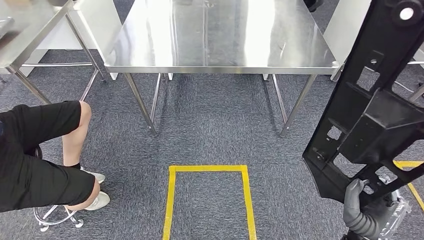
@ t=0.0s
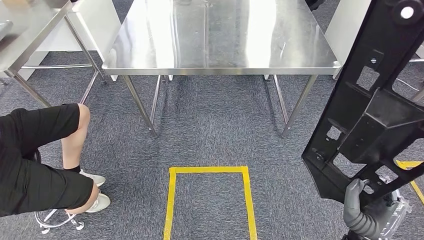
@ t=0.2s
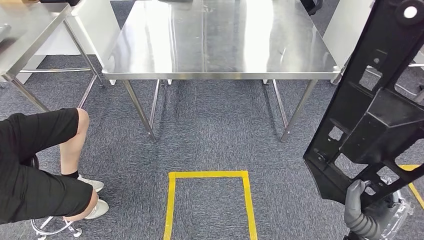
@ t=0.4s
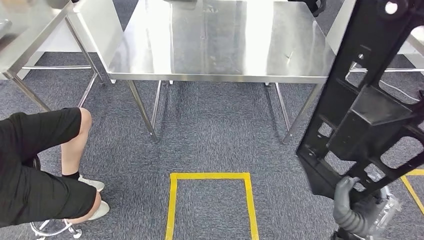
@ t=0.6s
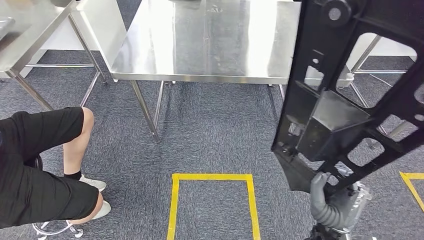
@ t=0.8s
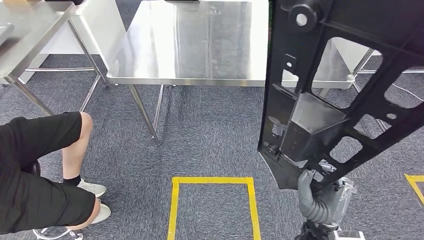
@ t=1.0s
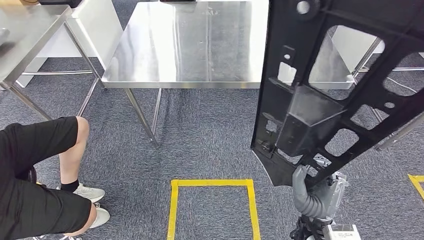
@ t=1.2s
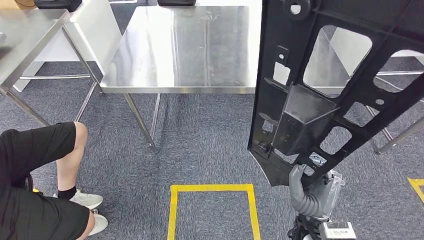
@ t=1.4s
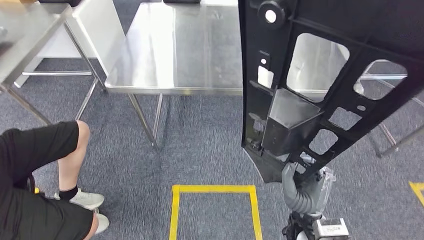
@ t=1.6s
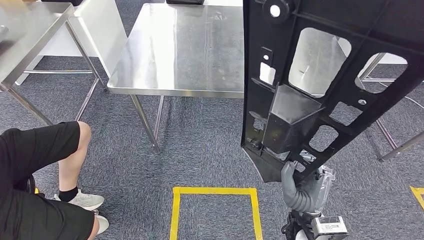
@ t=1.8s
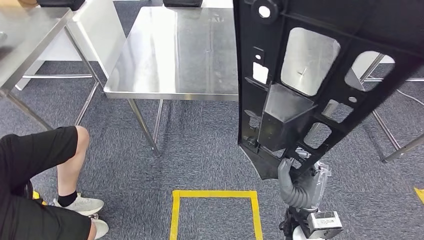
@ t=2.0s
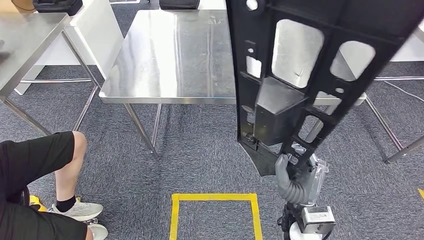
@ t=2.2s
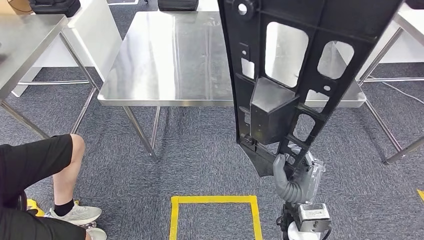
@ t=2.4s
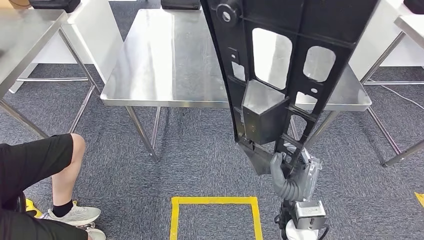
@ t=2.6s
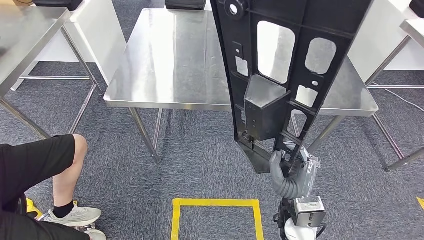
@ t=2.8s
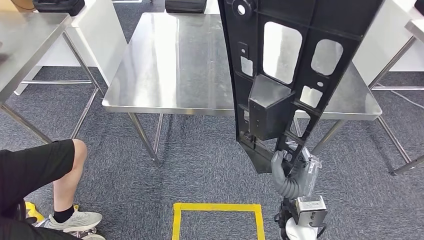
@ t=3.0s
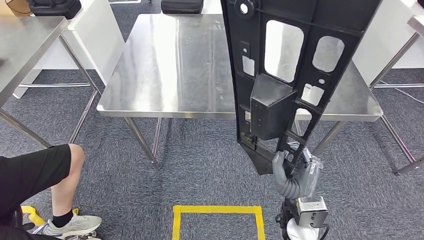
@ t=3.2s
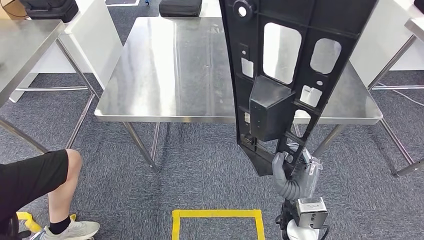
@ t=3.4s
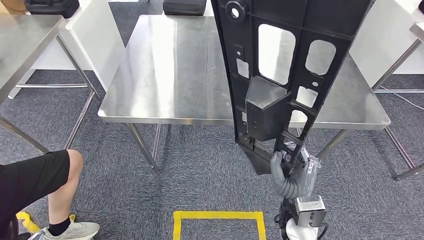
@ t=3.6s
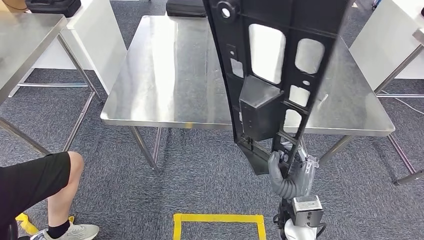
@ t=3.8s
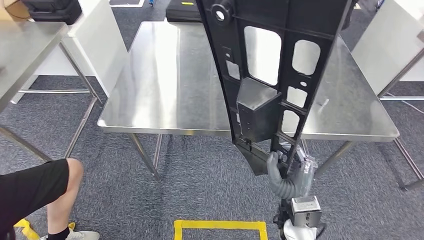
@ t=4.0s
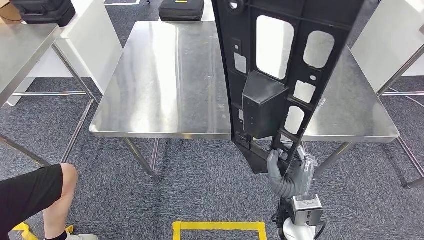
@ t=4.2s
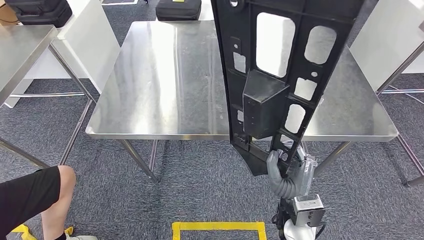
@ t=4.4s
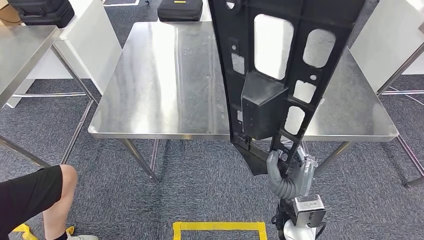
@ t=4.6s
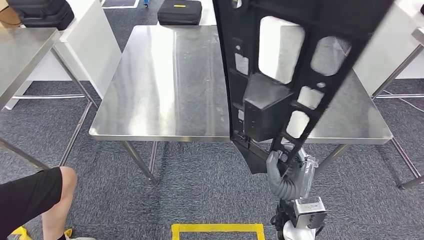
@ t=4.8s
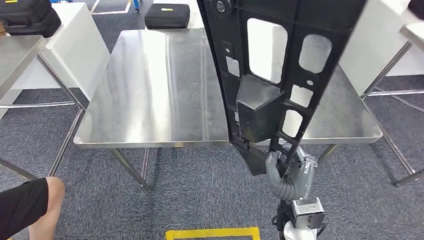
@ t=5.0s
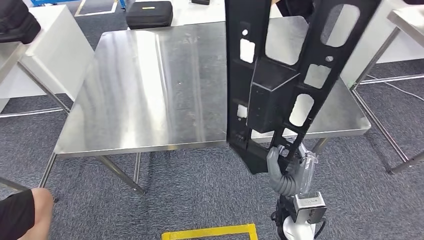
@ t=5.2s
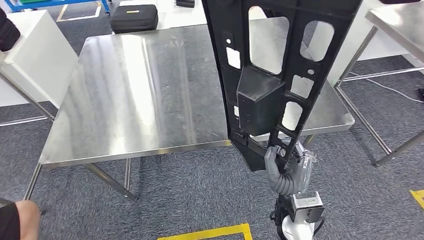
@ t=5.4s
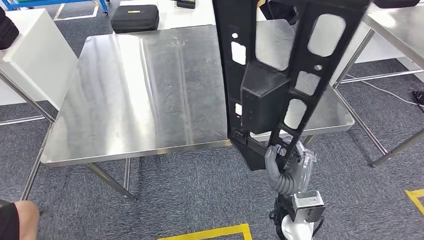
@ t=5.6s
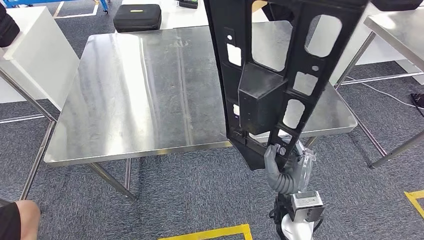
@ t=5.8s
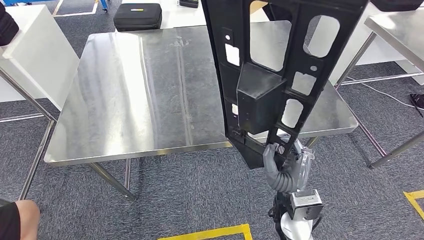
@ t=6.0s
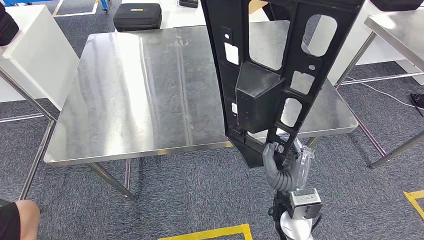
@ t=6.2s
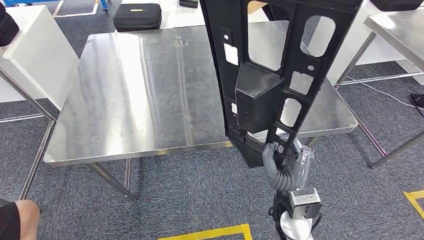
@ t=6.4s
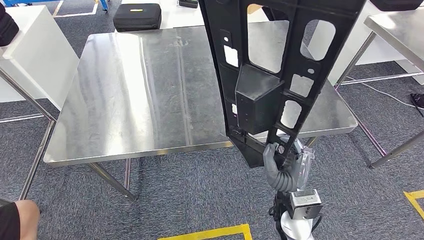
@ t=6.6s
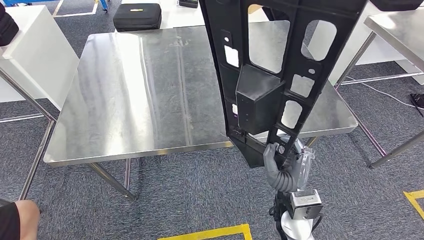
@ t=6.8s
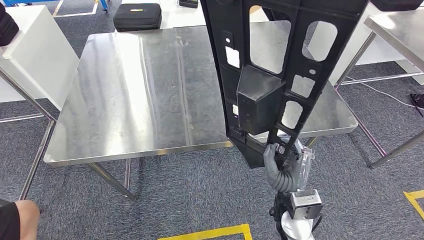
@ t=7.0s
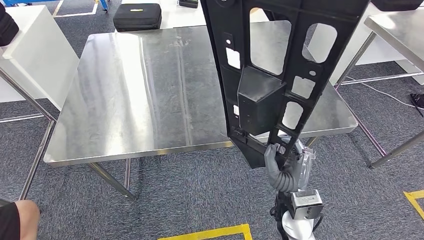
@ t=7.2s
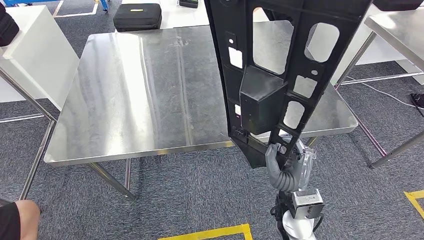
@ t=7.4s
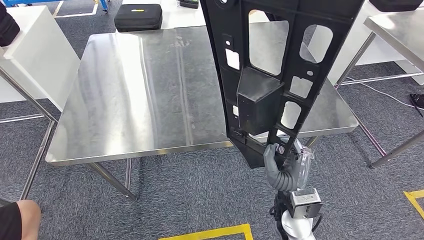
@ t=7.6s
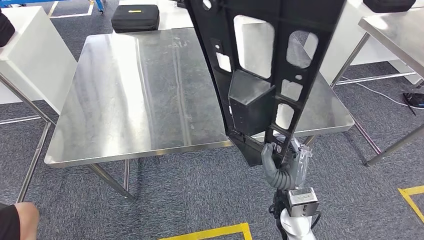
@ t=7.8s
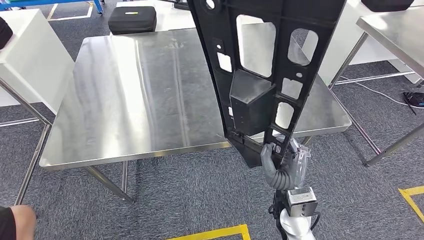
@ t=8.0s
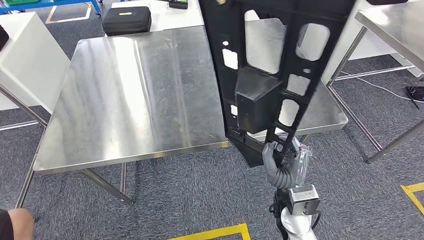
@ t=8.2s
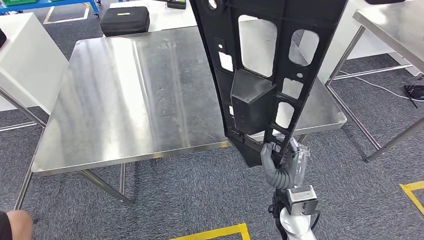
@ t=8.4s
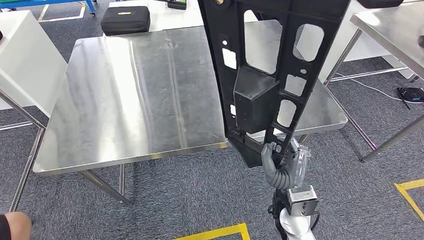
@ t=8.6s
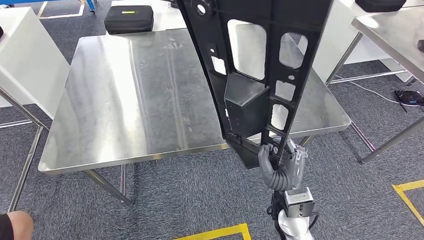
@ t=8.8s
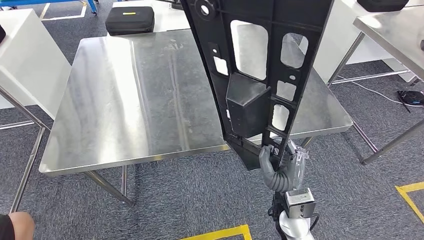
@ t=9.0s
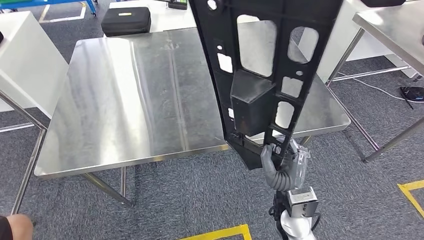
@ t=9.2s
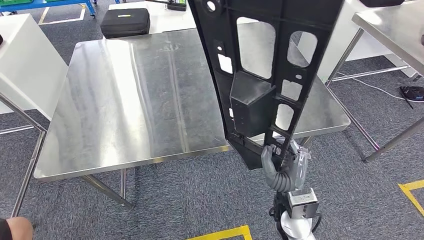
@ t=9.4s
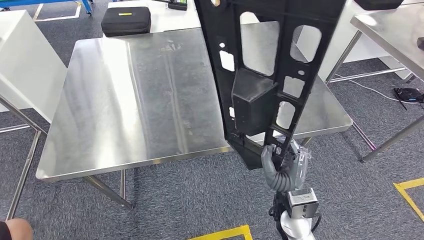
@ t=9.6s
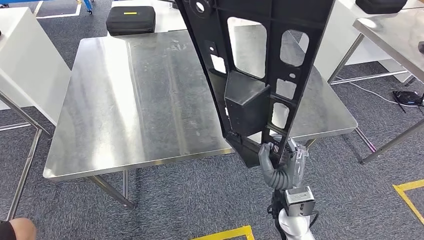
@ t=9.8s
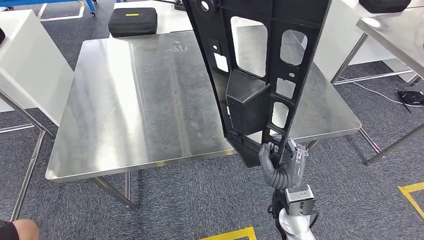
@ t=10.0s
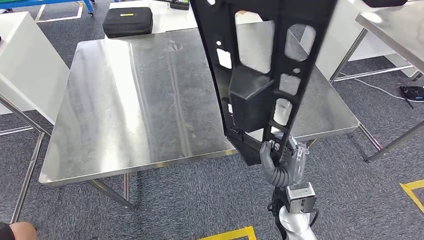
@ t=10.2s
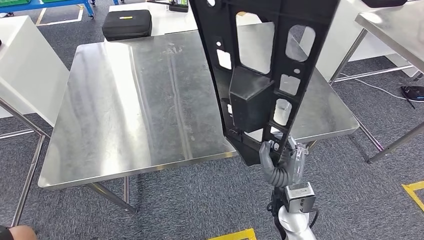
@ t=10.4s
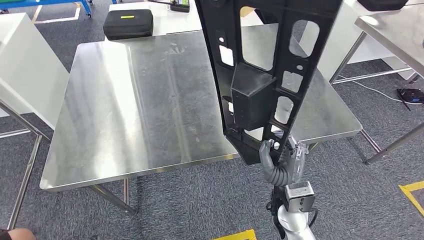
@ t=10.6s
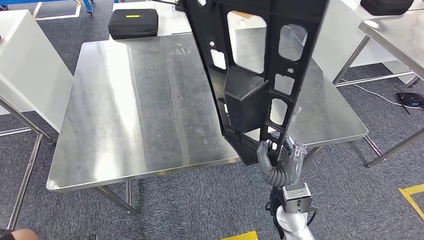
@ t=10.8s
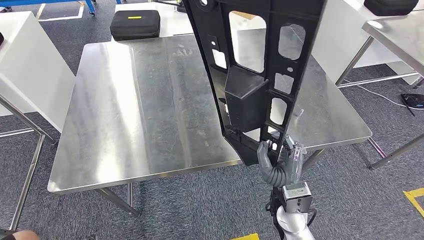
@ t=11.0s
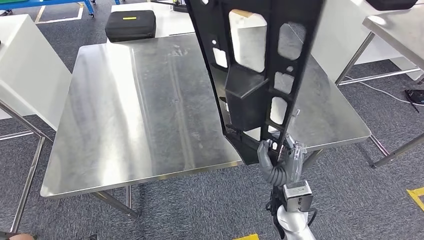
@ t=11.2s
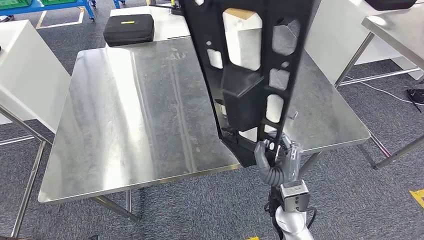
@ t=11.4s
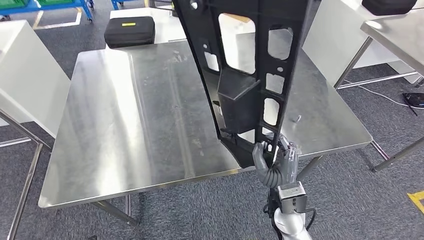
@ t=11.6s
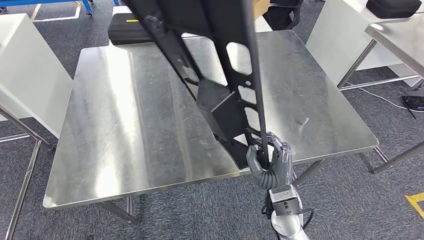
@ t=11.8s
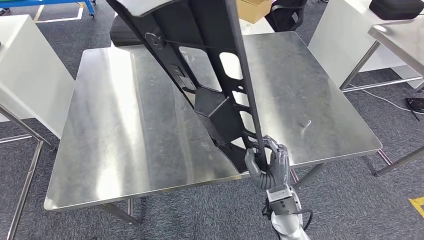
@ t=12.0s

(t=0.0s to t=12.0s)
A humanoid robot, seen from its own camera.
t=6.0s - t=7.6s: Both hands stay about where they are.

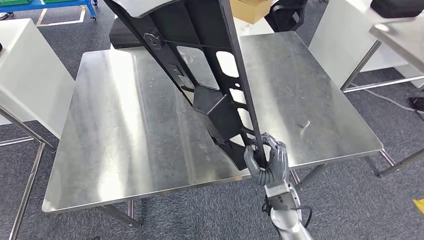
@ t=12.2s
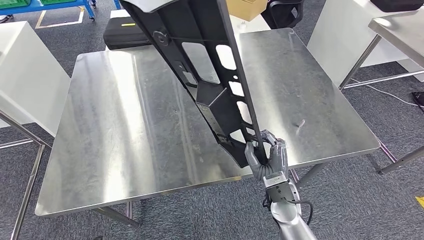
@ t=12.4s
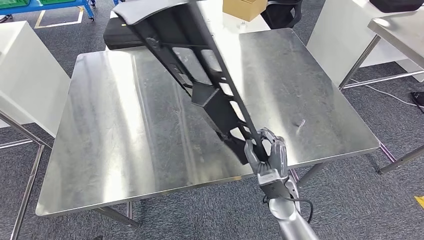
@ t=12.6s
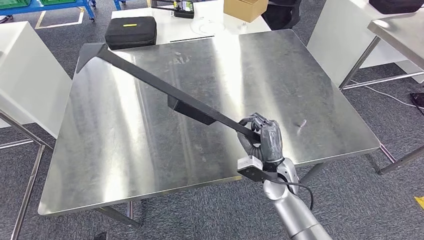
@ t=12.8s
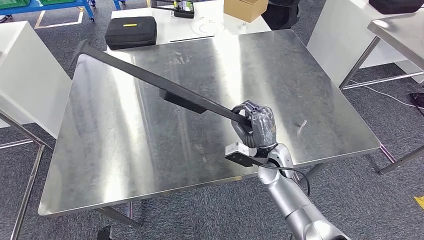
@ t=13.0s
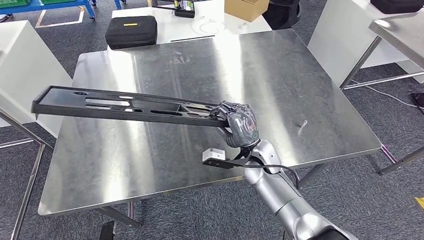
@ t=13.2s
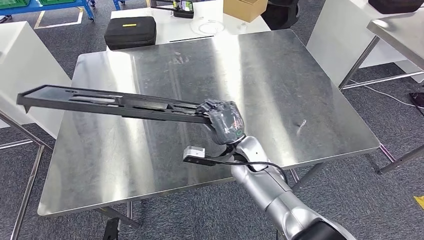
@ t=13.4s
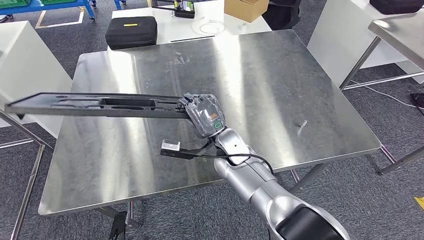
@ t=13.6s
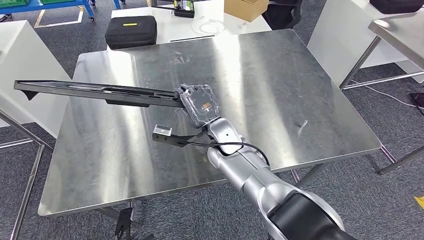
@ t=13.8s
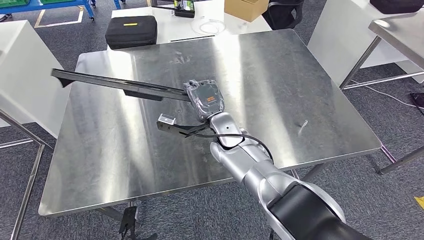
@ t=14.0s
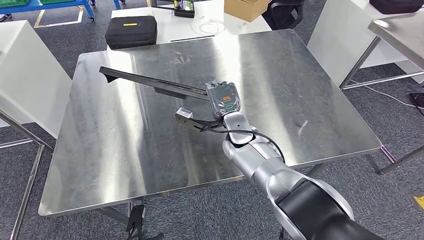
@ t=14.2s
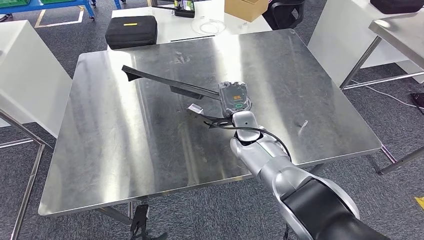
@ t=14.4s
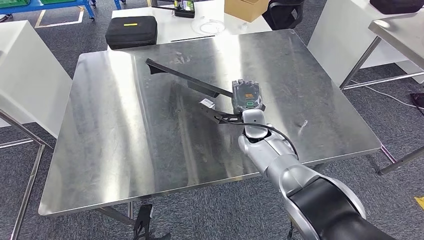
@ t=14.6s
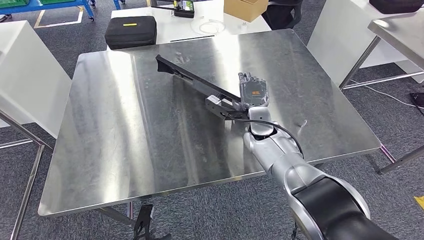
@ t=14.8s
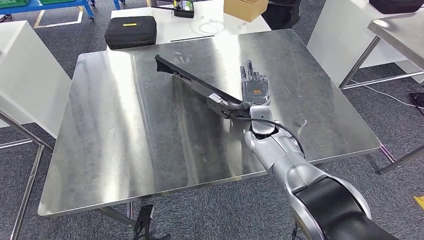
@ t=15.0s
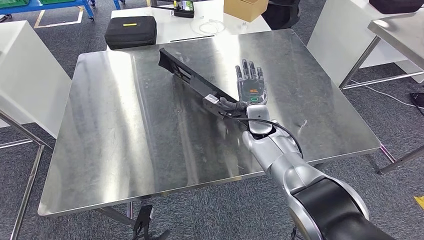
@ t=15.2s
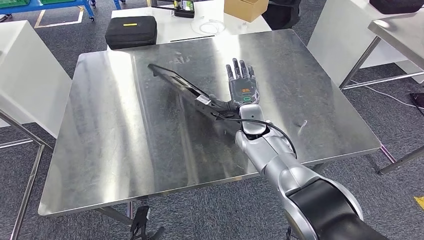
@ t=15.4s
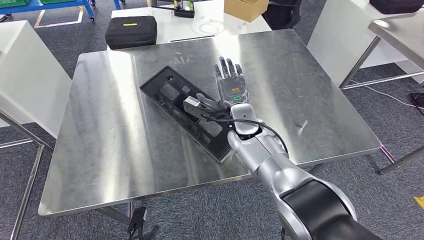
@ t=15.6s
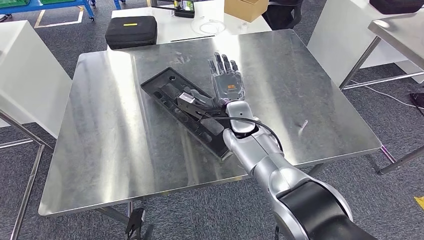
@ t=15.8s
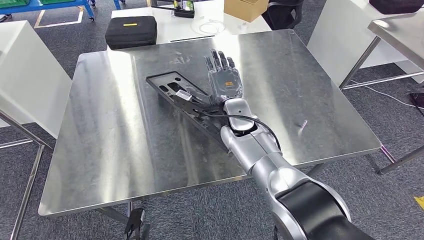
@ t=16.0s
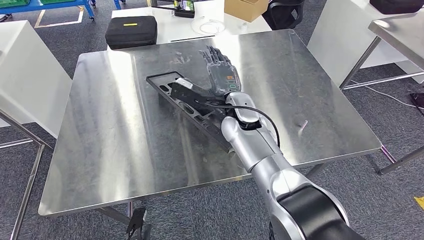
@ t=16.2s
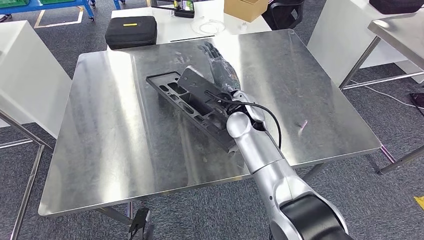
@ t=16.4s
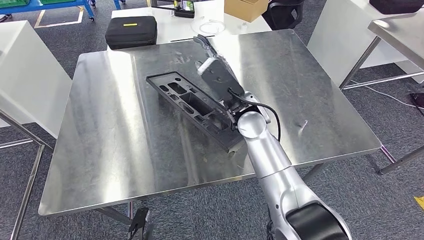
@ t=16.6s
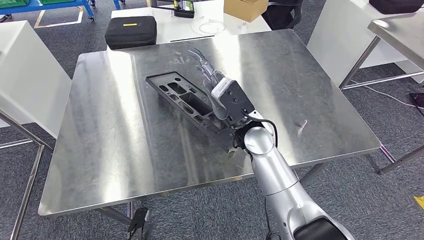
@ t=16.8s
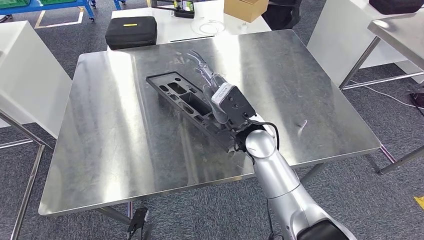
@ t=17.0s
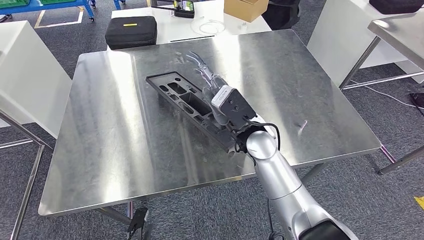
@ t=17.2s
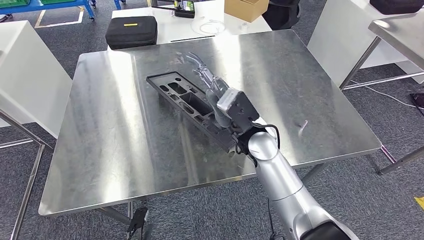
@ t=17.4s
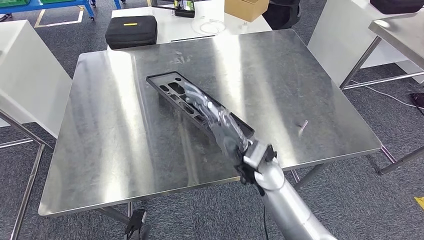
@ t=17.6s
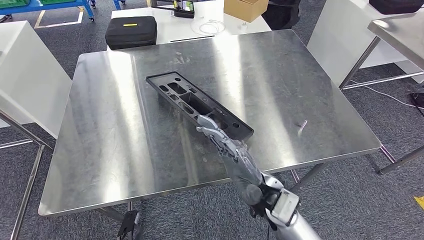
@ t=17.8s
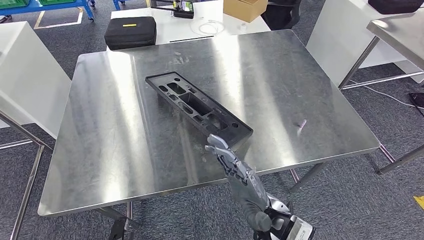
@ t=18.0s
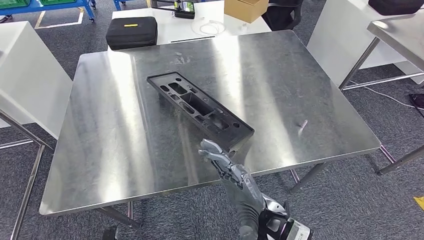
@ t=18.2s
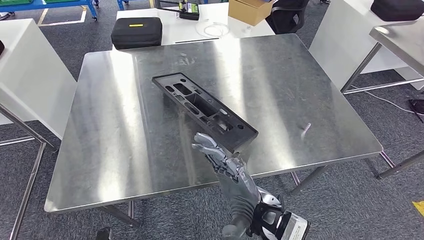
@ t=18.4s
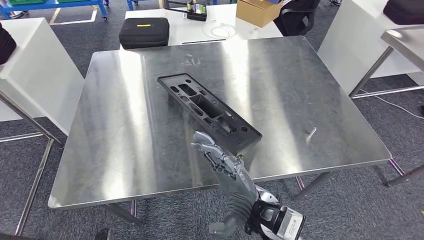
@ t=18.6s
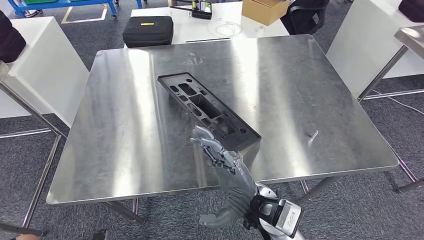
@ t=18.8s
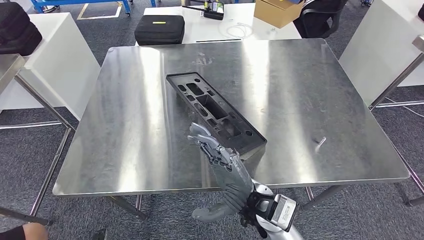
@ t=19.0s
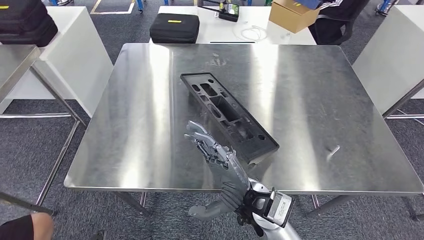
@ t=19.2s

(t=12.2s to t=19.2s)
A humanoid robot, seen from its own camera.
t=15.0s - t=16.4s: The right hand shifts roughly 10 cm upward and to the left.
t=16.4s - t=17.8s: The right hand shifts some 20 cm backward and downward.
